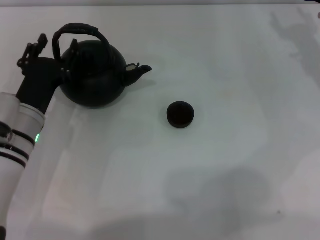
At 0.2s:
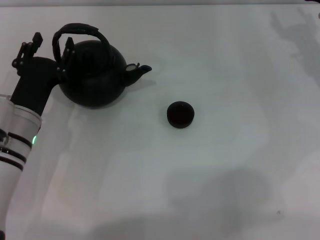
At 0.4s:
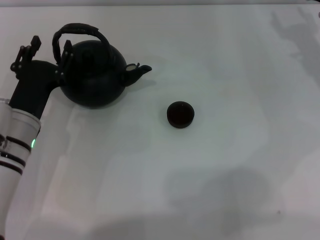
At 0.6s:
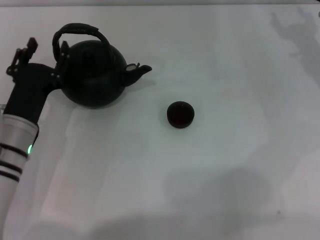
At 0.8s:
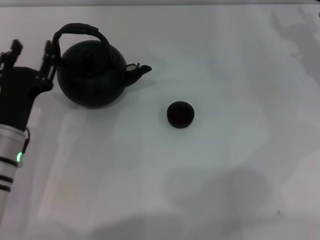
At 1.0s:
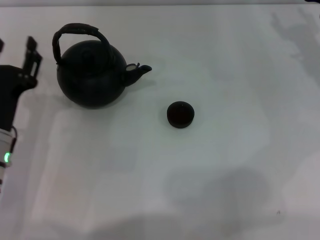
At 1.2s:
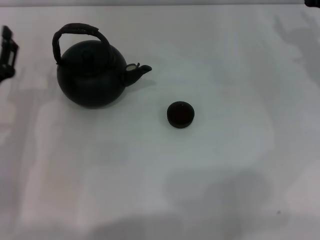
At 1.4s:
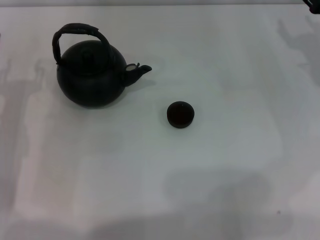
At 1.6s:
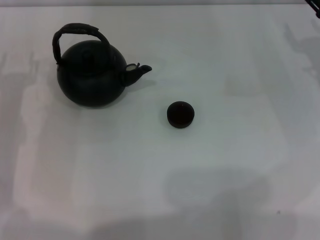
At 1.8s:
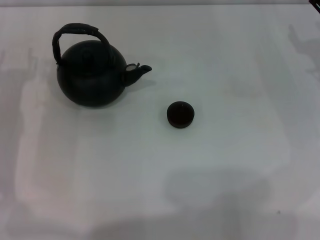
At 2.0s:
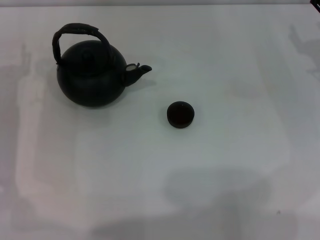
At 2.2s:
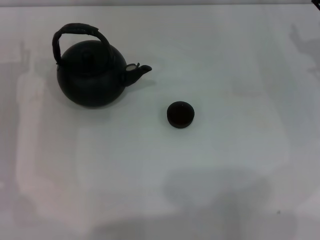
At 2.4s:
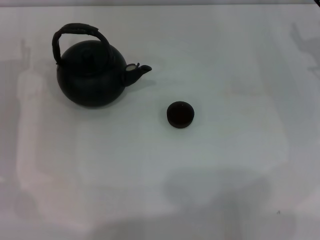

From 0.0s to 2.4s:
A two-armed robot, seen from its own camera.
Task of the whole recording: Grasp the handle of the teapot with one hand and pour tea into the teacup.
From 0.0s to 1.2s: The left gripper shifts by approximately 5 cm.
From 1.2s to 2.4s: The left gripper heads forward, covering some 10 cm.

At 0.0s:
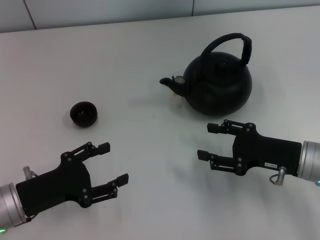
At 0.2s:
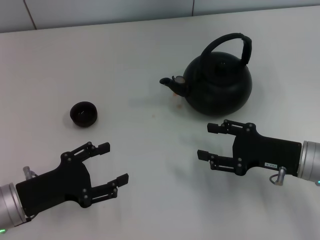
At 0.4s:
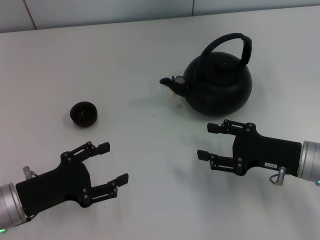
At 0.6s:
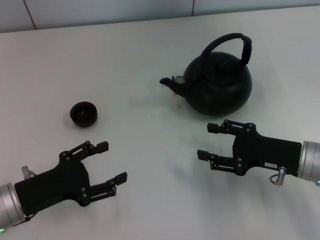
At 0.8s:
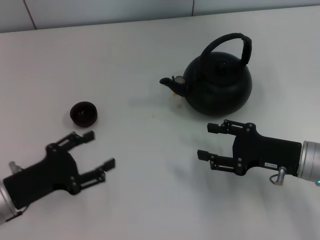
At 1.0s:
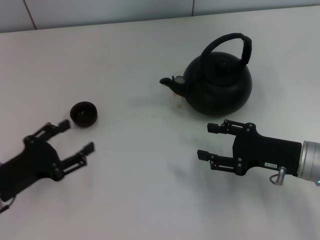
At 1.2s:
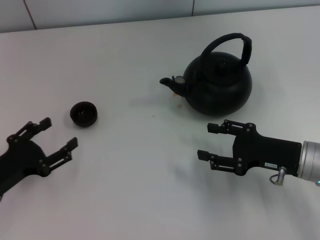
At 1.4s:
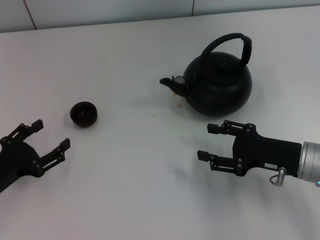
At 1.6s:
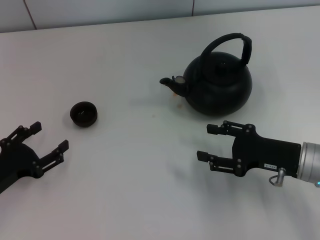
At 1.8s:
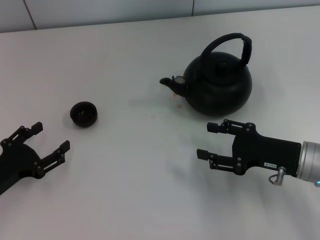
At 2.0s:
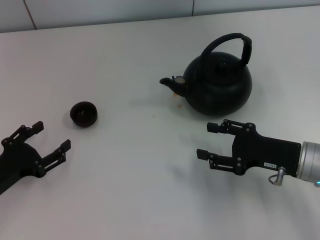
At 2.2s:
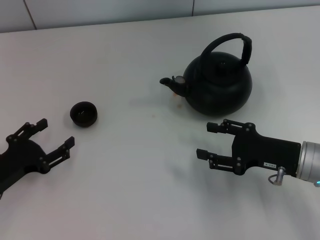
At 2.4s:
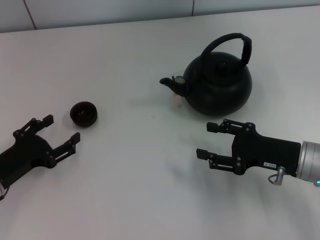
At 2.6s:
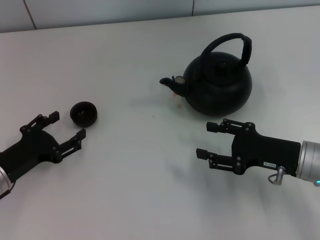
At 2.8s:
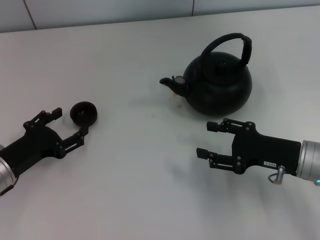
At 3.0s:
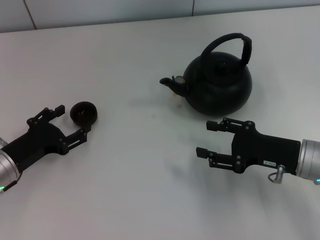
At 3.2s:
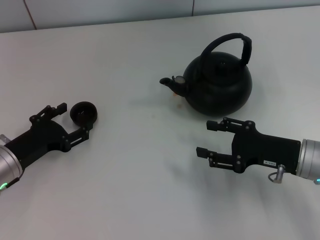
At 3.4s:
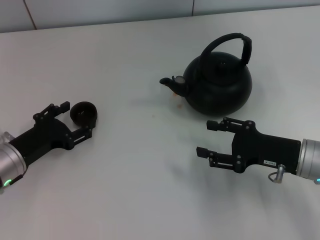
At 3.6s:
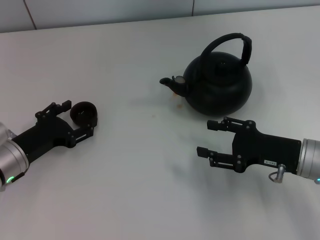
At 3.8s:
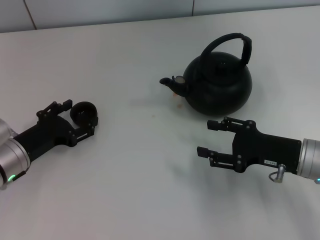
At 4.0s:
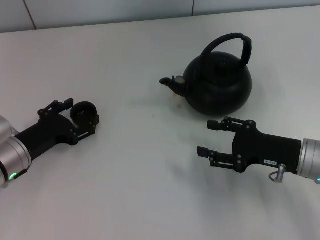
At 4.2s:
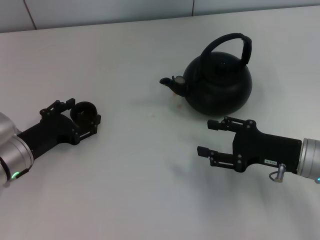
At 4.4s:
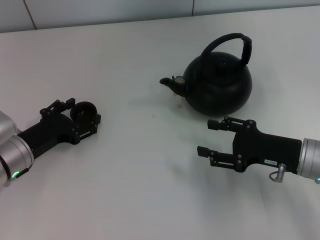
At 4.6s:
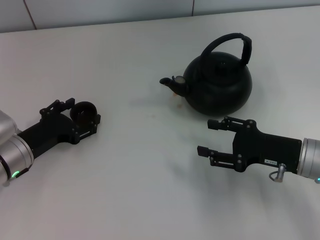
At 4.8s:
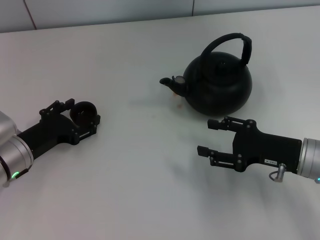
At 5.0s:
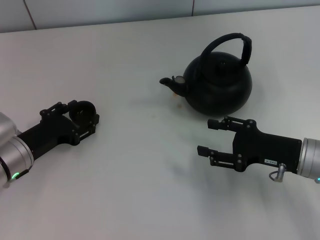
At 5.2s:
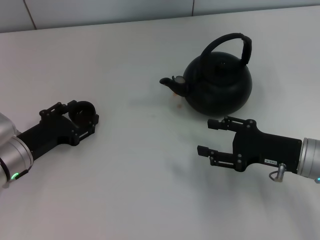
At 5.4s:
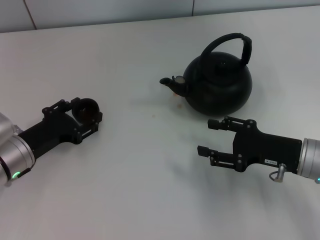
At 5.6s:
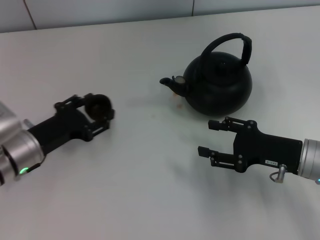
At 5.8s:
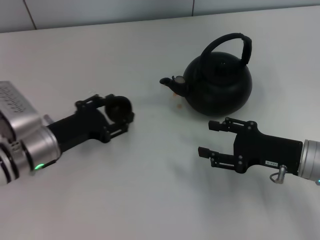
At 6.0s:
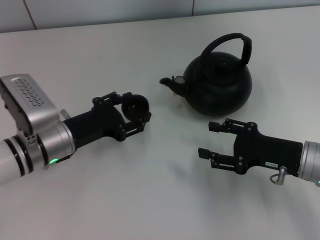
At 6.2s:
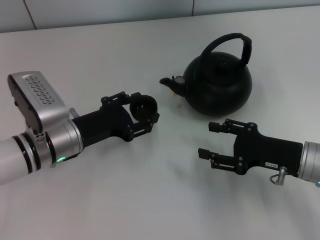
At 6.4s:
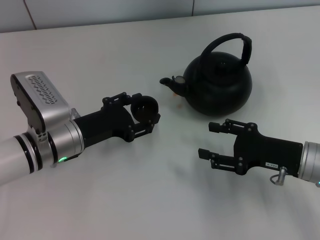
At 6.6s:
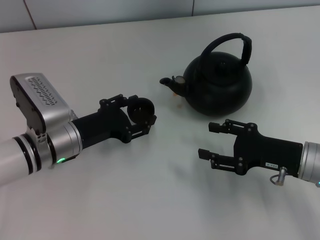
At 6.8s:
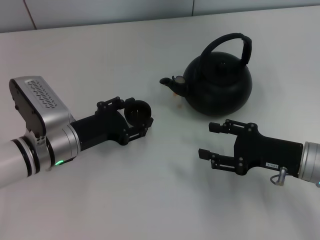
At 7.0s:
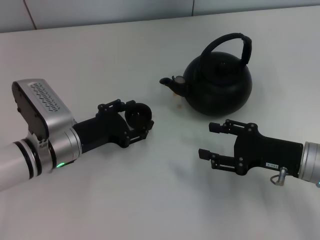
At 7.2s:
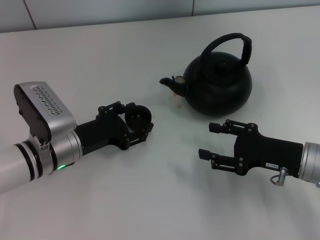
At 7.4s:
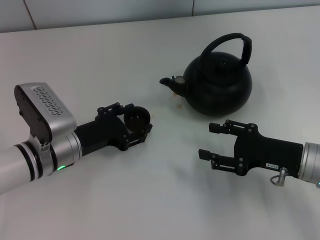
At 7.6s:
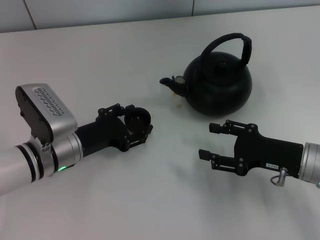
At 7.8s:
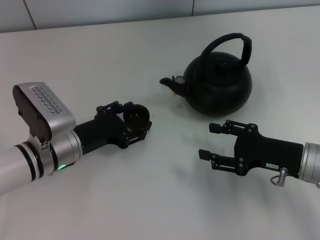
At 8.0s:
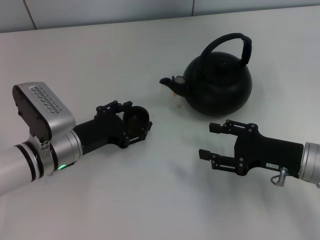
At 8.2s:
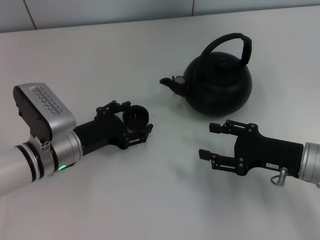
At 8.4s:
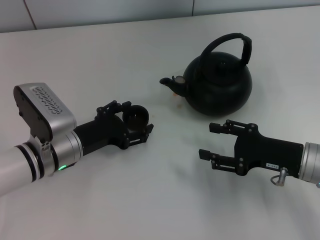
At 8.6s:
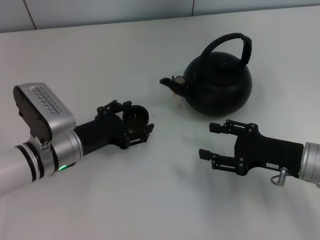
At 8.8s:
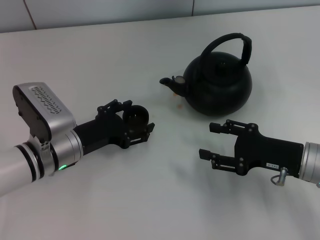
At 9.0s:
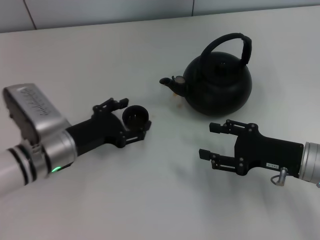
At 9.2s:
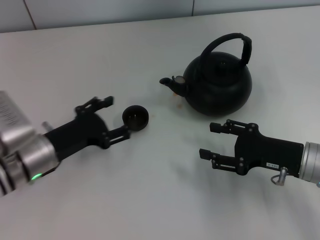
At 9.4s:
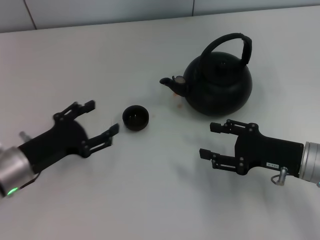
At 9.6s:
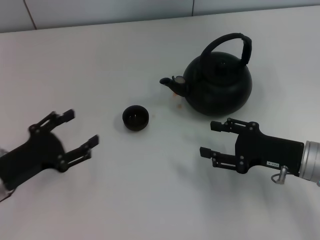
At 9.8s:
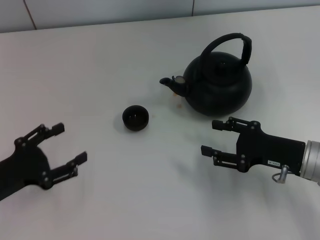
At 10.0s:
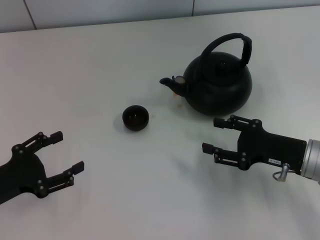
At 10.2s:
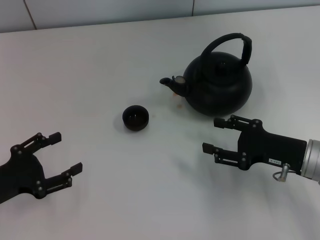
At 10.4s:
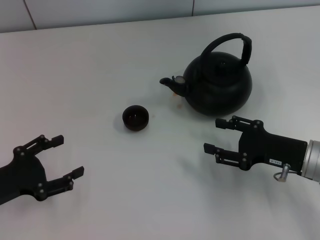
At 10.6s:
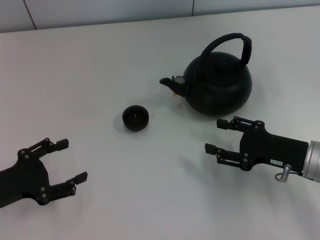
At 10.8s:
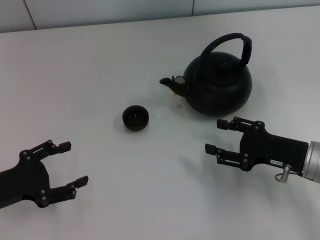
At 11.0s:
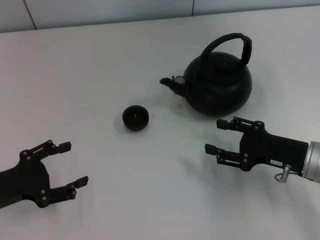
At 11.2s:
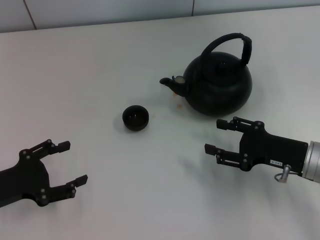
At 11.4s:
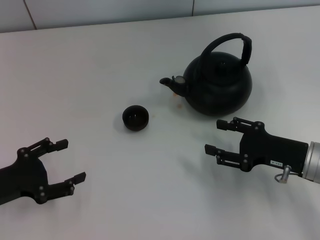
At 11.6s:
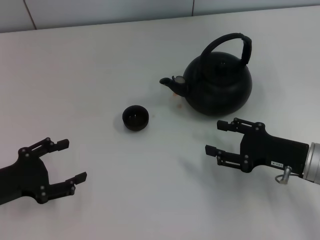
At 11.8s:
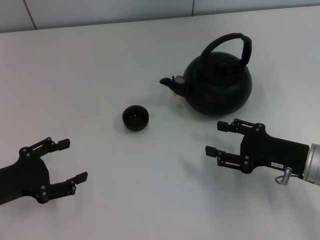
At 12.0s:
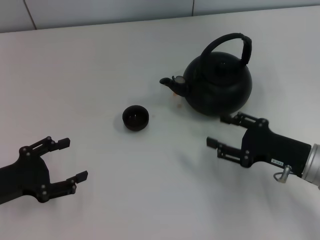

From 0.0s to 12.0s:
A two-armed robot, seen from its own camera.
Task of the whole recording: Grasp the handle of the teapot with one hand and pour tea into the teacup.
Step, from 0.0s to 5.4s: Pick up the teacup with the left gripper.
Step, from 5.6s to 9.2s: Place the teacup in the center of view with the left gripper.
From 0.0s to 1.6s: The left gripper shifts about 5 cm to the left.
From 1.6s to 3.0s: The left gripper moves about 5 cm.
From 3.0s to 4.4s: The grippers stay close to where they were, moving slightly.
From 4.4s to 6.0s: The left gripper shifts about 5 cm to the right, and closes up.
From 6.0s to 7.6s: The grippers make only small movements.
From 7.6s to 9.0s: The left gripper opens up.
From 9.0s to 10.4s: The left gripper shifts roughly 15 cm to the left and backward.
From 10.4s to 12.0s: There are only small adjustments of the grippers.

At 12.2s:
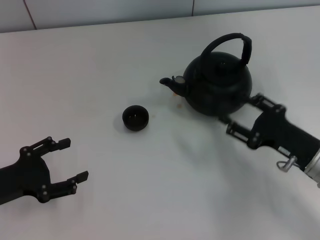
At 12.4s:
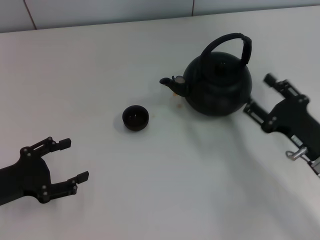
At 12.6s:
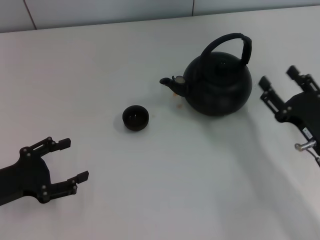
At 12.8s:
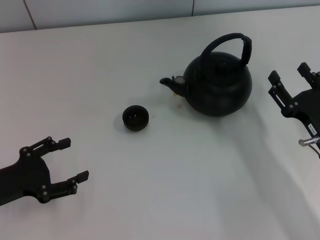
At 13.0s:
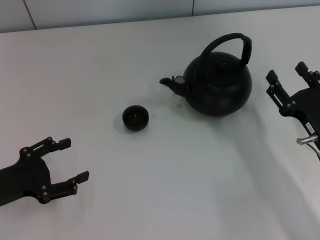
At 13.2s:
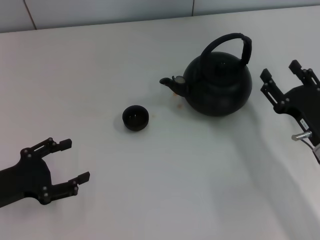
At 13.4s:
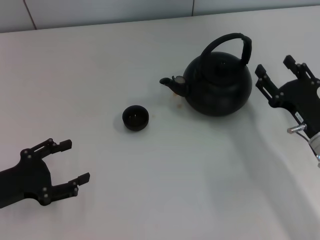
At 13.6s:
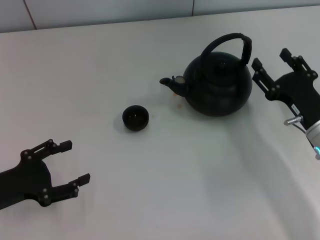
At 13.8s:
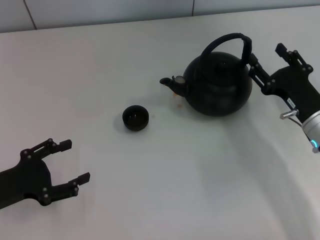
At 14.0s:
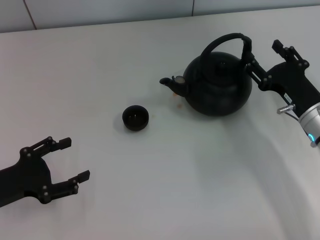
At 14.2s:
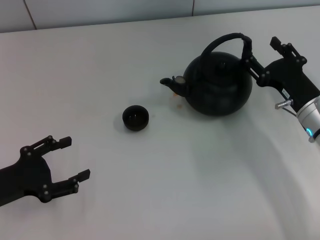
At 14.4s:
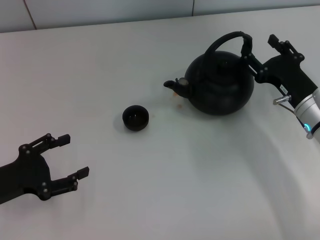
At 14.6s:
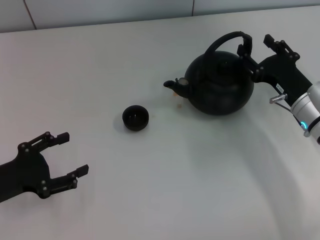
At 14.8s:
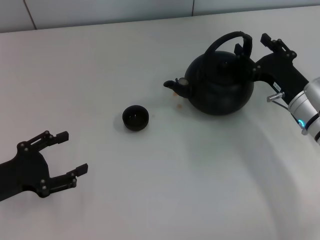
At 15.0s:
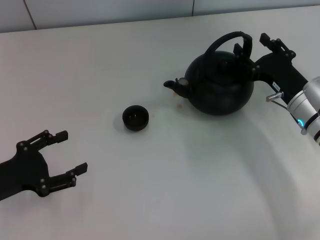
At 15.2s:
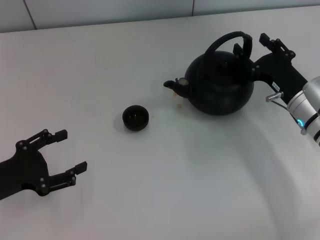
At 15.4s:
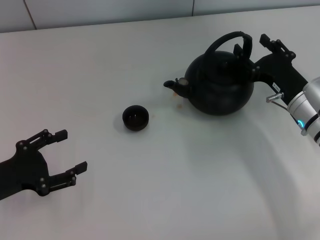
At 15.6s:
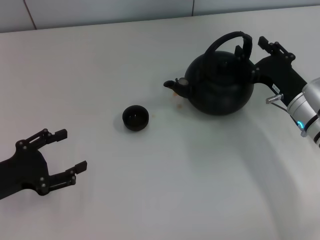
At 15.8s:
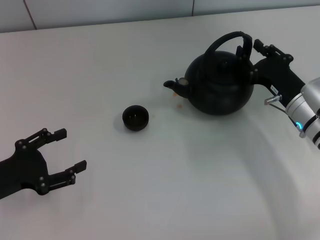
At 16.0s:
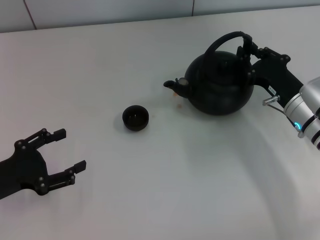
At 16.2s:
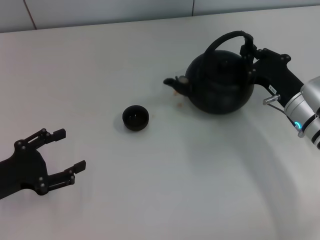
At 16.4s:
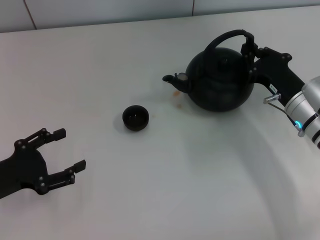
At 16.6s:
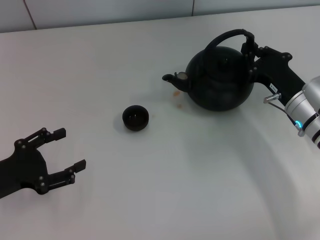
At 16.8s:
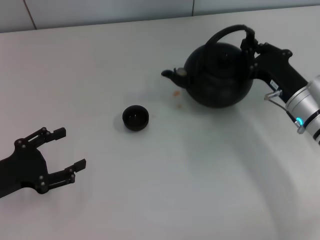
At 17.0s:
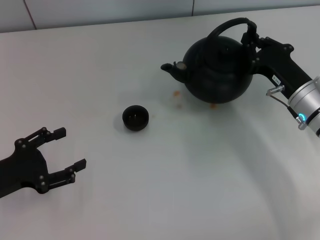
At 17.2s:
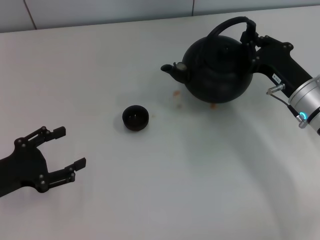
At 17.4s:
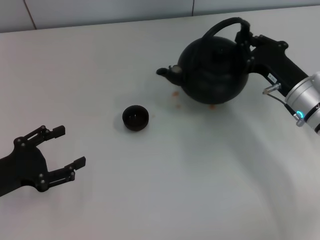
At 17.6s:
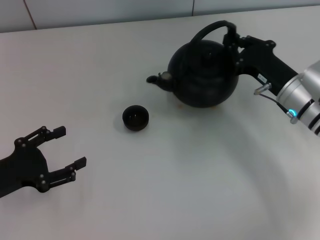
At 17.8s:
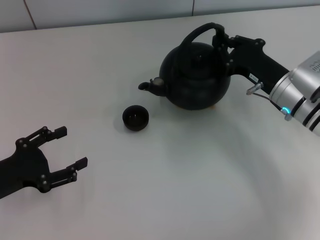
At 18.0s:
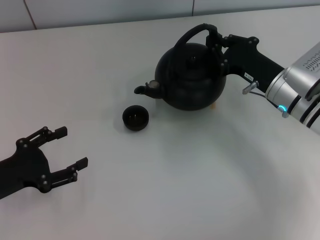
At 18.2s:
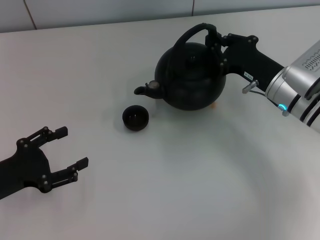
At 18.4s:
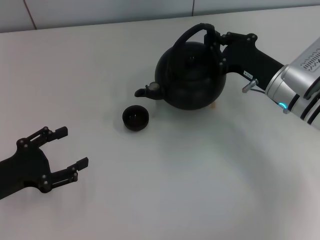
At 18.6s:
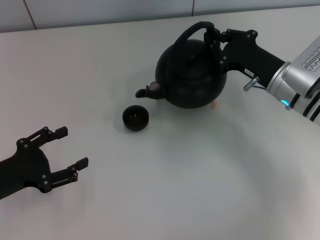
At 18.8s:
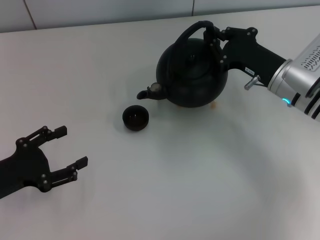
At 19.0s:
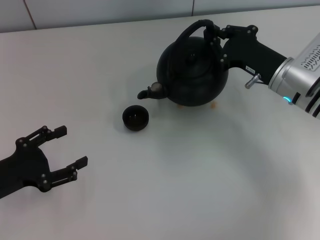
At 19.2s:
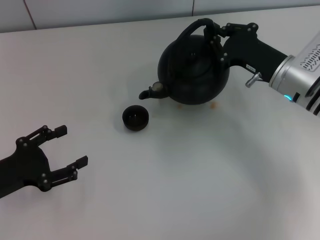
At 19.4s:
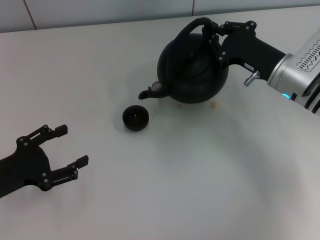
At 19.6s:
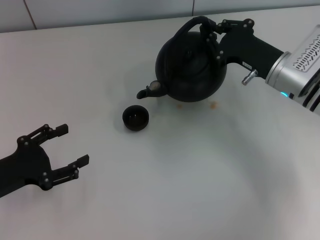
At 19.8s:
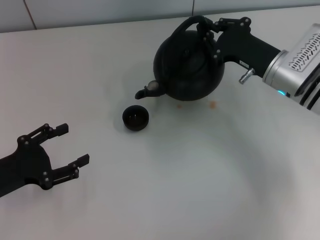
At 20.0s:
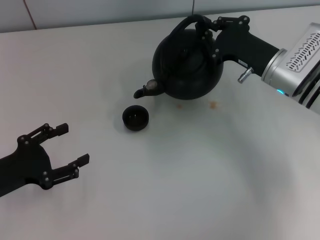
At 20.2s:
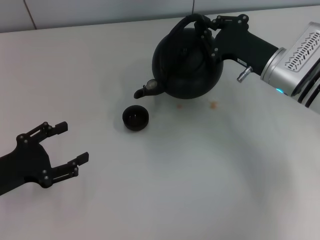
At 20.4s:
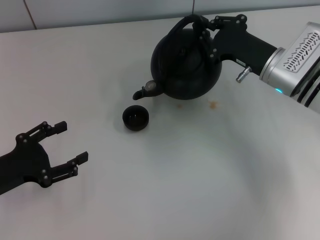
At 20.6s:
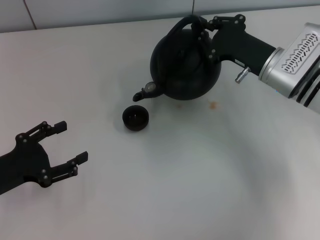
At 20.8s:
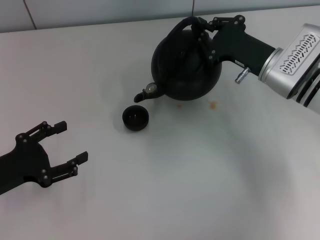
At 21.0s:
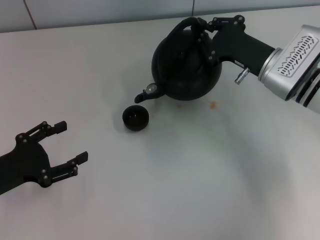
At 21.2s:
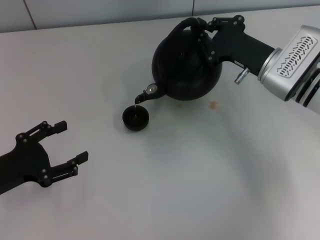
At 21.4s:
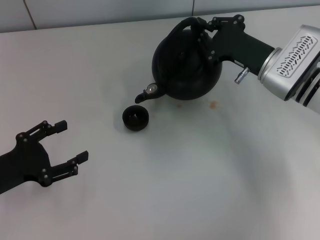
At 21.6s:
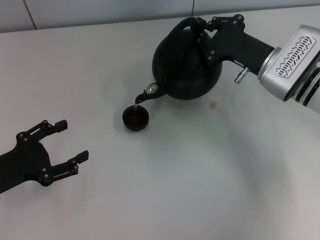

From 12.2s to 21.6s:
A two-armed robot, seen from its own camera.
Task of the whole recording: Grasp the handle of the teapot with one hand and pour tea into the teacup.
Step, from 12.2s to 17.0s: Pick up the teapot with the right gripper.
From 13.8s to 15.4s: The grippers stay close to where they were, moving slightly.
From 15.4s to 17.0s: The right gripper closes.
From 17.0s to 18.4s: There are only small adjustments of the grippers.
From 18.4s to 20.0s: The grippers make only small movements.
From 20.0s to 21.6s: The grippers make only small movements.
